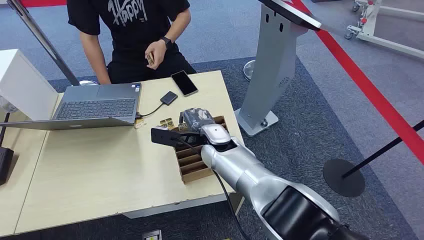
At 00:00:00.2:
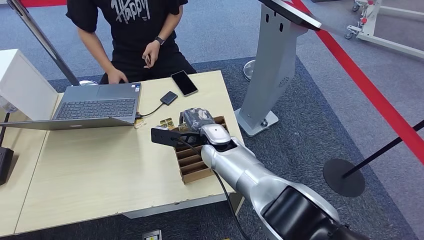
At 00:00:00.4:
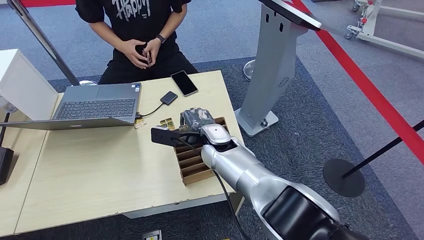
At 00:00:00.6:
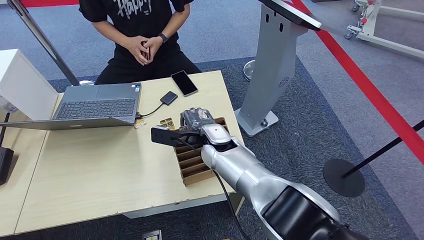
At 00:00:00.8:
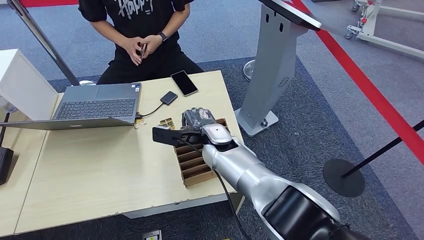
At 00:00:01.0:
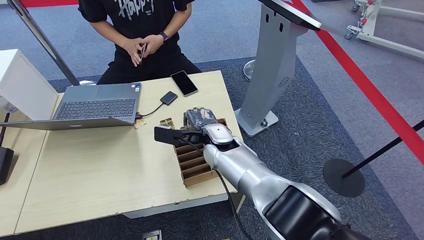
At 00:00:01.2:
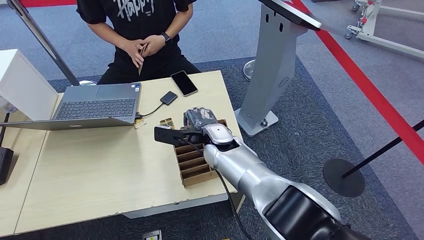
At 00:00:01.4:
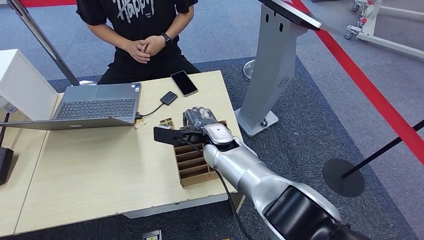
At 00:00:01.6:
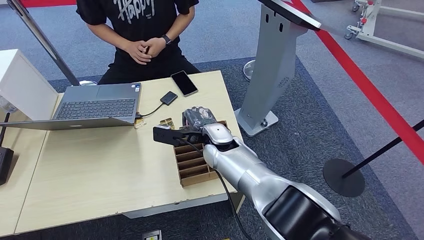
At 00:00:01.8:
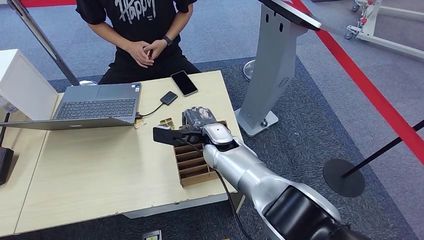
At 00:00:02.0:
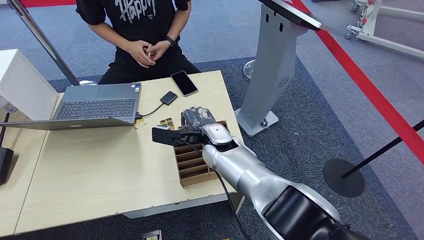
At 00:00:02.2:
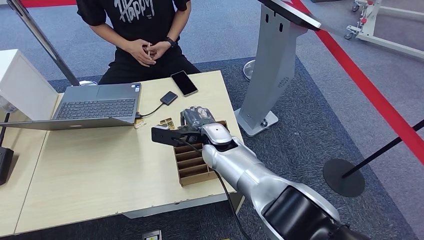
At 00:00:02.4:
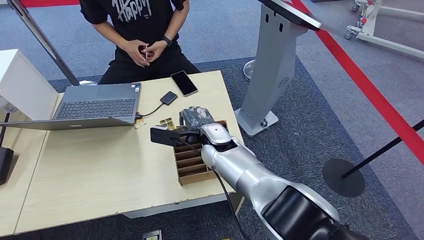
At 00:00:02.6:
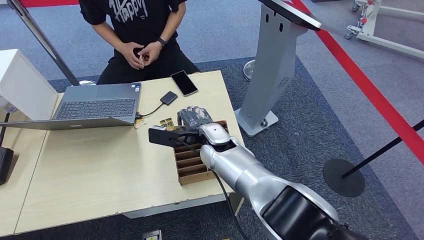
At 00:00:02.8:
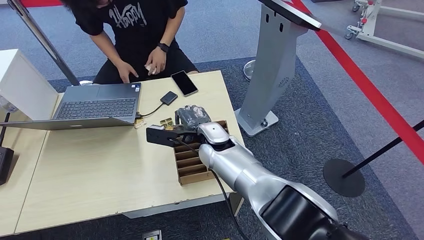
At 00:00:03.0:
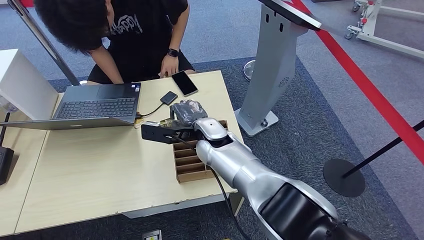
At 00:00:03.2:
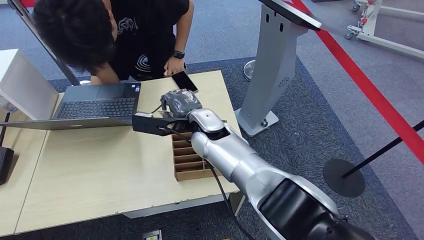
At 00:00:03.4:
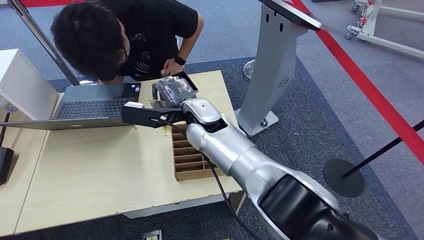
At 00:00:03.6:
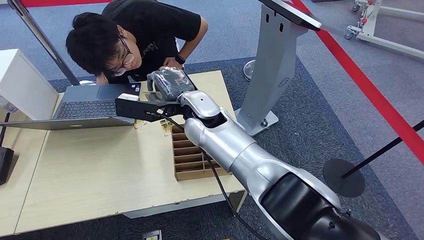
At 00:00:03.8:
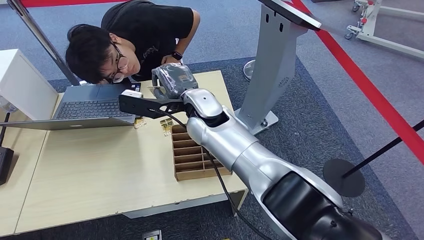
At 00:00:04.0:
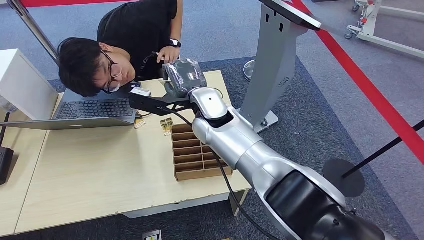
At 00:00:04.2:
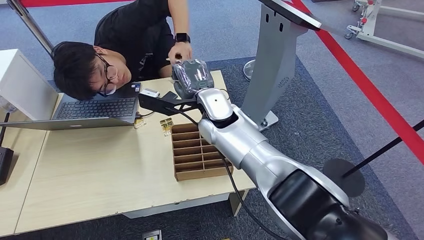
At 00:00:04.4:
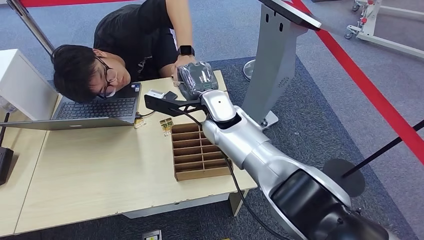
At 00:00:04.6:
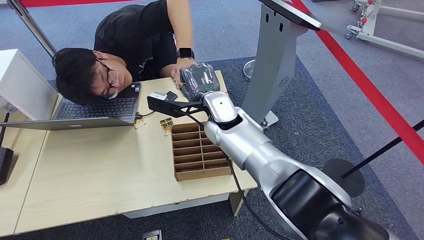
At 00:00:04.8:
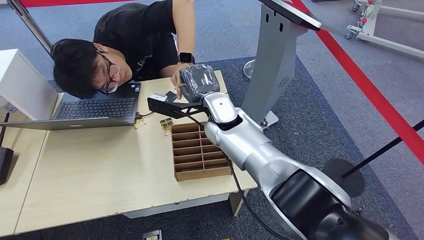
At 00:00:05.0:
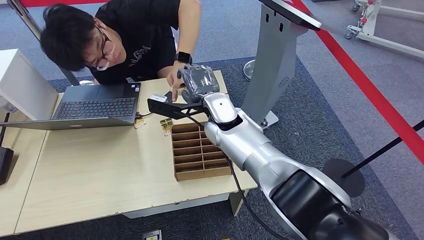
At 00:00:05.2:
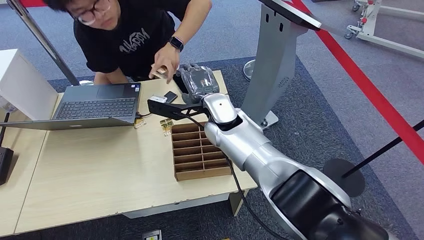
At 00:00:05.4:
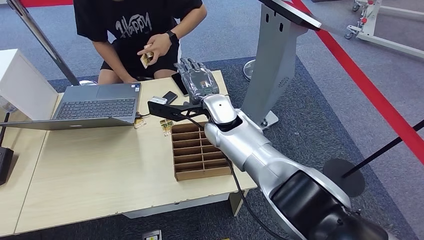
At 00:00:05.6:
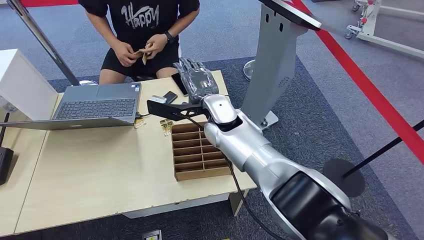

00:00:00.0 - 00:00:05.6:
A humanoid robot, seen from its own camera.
Step, 00:00:00.0 - 00:00:03.6: Pick up the key card from the card box.
Step, 00:00:03.8 - 00:00:05.4: Hand the key card to the target.
00:00:01.4 - 00:00:02.8: Both hands stay put.
00:00:04.2 - 00:00:05.6: There are only small adjustments of the hands.

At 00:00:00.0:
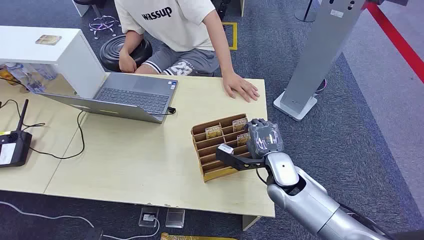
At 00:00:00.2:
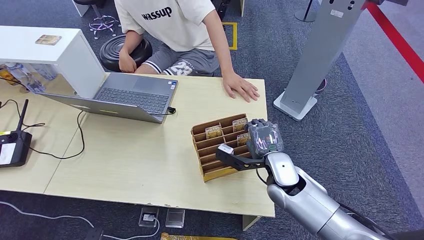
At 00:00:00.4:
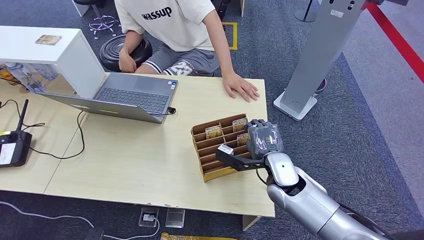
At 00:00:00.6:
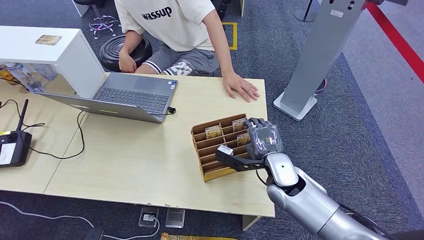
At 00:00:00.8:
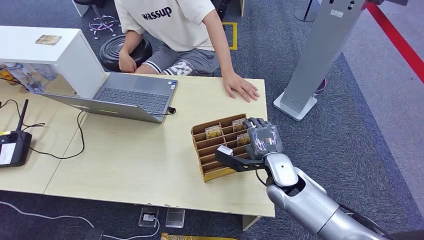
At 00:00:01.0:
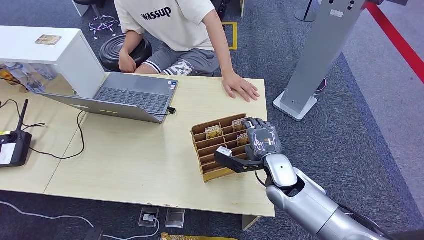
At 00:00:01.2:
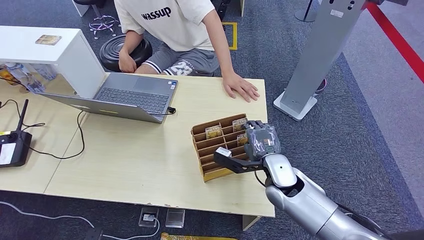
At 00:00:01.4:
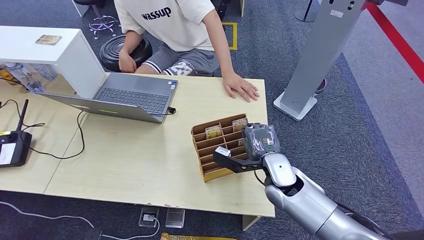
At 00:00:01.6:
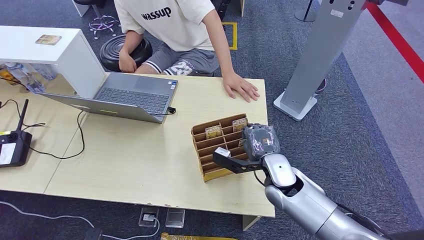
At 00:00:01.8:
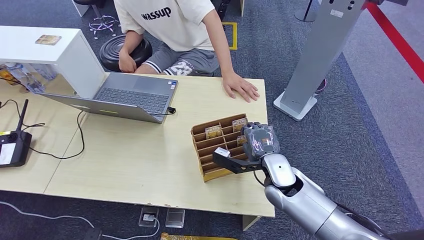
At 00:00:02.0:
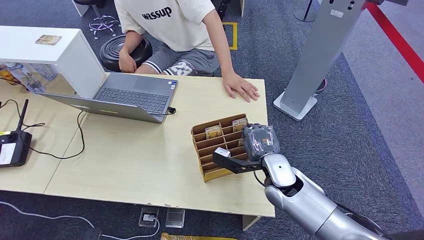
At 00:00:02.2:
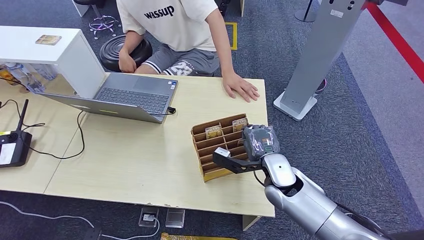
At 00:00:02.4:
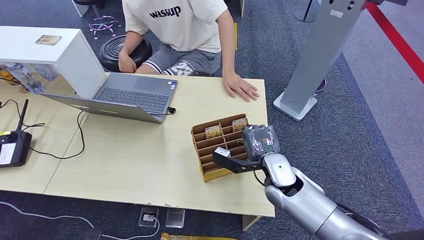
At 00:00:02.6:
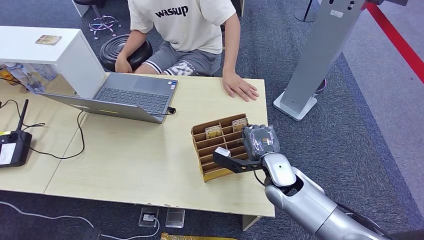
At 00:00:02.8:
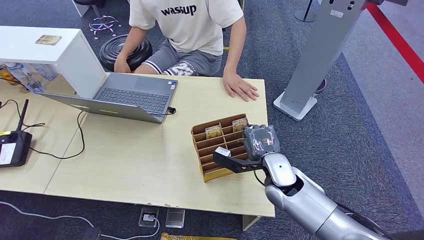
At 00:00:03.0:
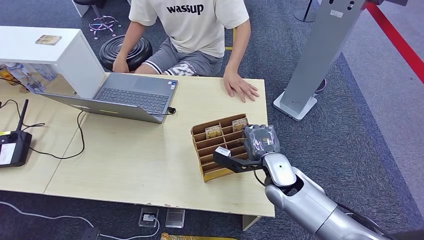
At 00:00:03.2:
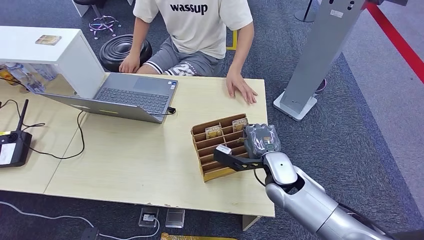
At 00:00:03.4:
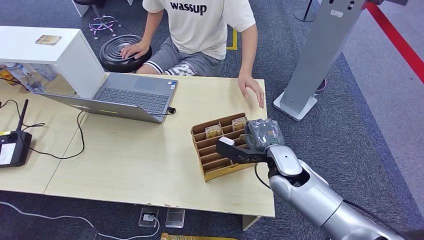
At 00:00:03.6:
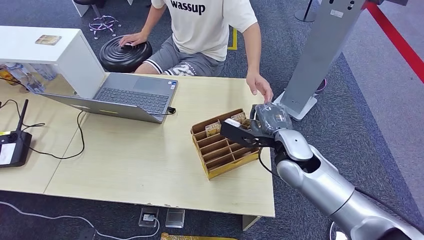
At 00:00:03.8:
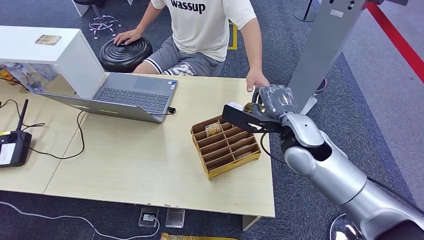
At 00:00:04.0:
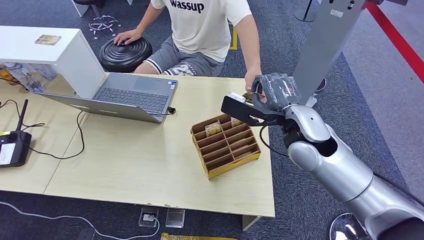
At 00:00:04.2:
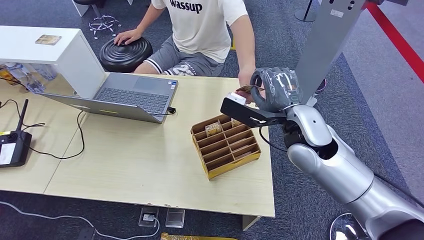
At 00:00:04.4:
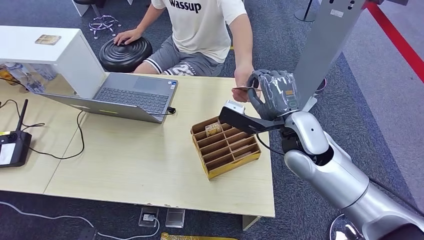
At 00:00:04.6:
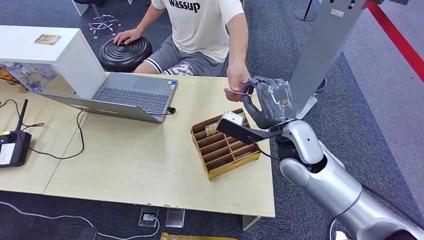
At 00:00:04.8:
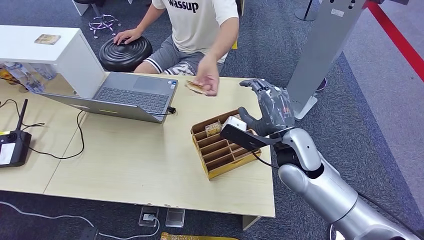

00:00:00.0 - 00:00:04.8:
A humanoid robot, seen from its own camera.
Step, 00:00:00.0 - 00:00:03.6: Pick up the key card from the card box.
Step, 00:00:04.0 - 00:00:04.8: Hand the key card to the target.
00:00:01.6 - 00:00:03.2: Both hands stay put.
00:00:03.2 - 00:00:04.8: The right hand is displaced upward by roughly 10 cm.

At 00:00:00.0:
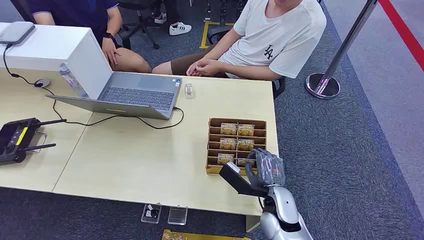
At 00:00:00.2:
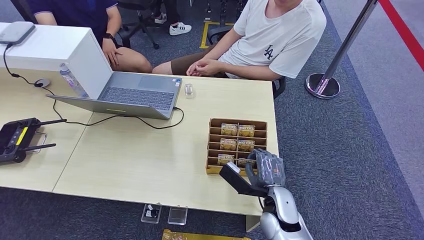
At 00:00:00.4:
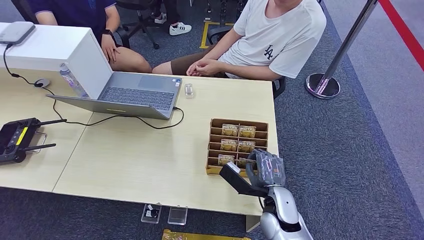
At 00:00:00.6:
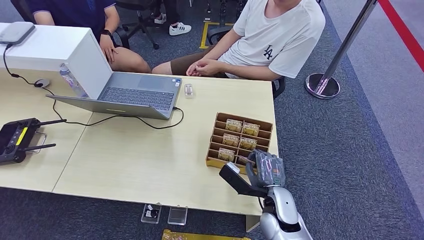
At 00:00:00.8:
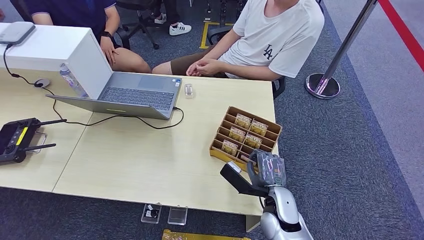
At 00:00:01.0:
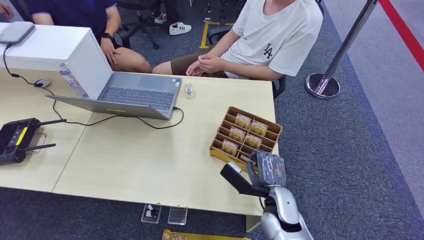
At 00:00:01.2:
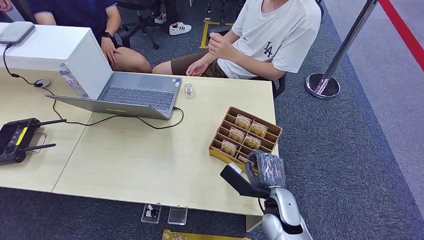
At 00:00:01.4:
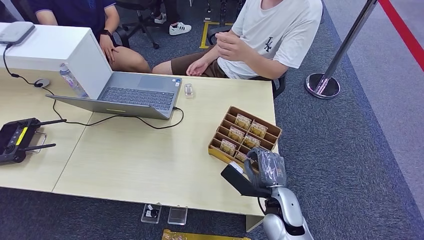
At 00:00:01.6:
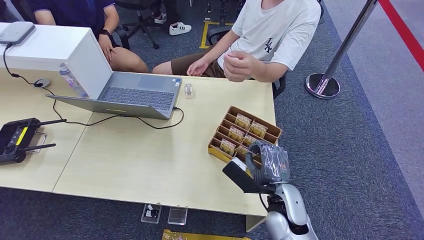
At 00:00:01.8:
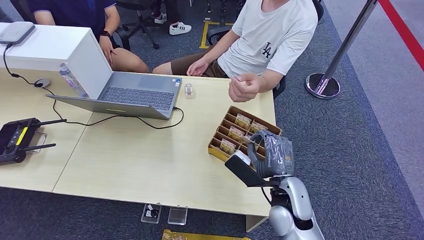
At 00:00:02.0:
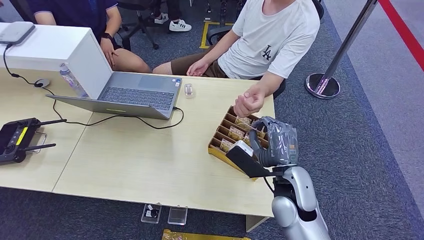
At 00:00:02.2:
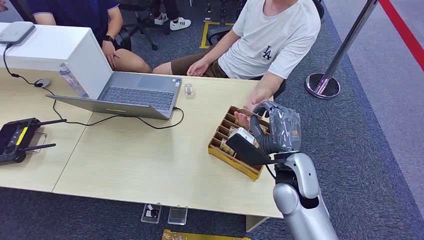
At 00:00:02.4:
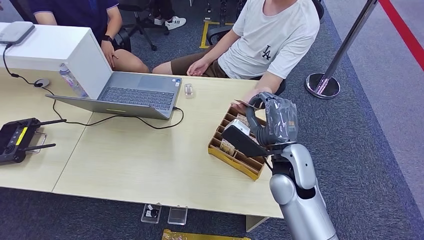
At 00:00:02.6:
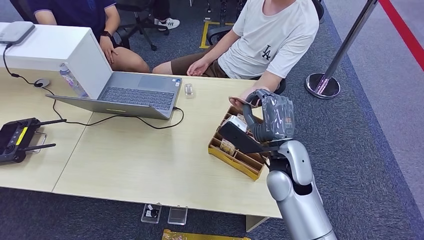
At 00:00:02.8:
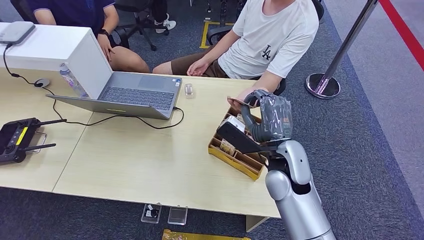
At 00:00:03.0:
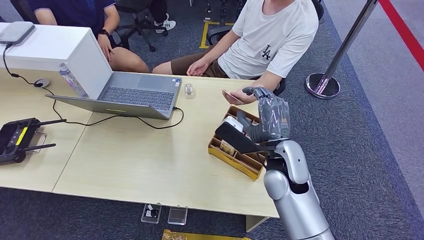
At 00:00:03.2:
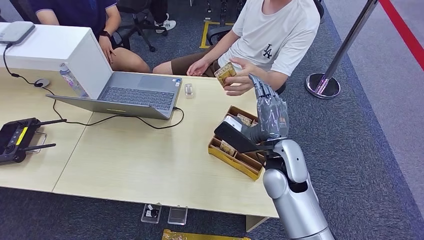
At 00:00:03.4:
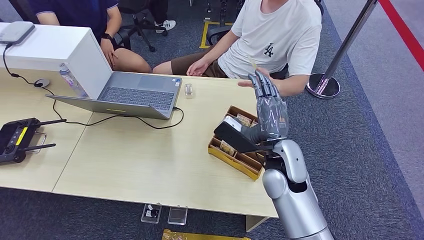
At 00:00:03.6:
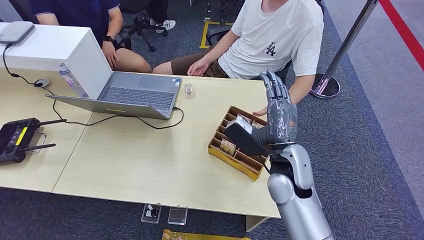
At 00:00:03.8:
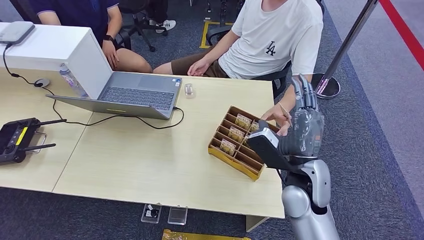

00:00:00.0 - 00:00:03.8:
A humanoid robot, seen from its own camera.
Step, 00:00:00.0 - 00:00:01.6: Pick up the key card from the card box.
Step, 00:00:01.8 - 00:00:03.8: Hand the key card to the target.
00:00:01.2 - 00:00:02.6: The right hand moves upward and forward, approximately 15 cm.
00:00:02.6 - 00:00:03.8: The hands make only small movements.
